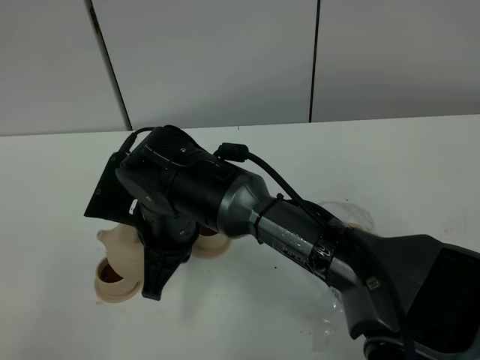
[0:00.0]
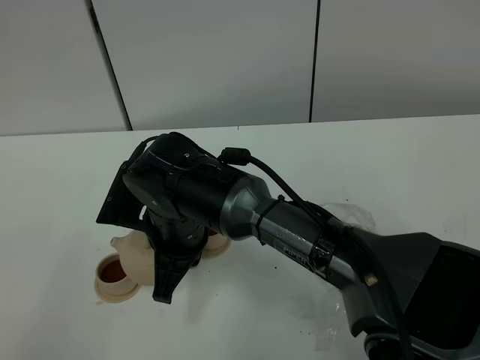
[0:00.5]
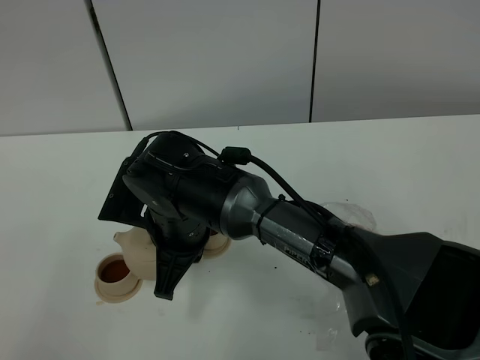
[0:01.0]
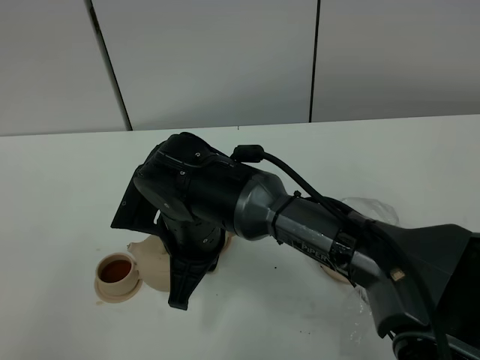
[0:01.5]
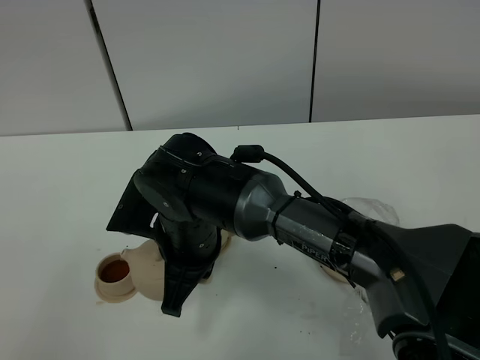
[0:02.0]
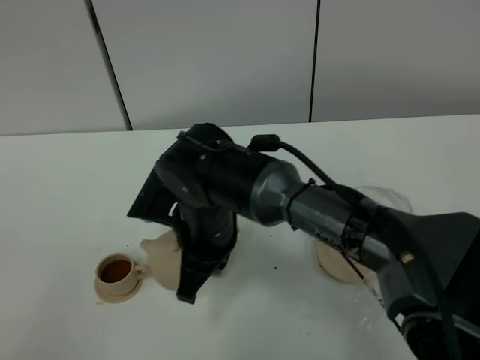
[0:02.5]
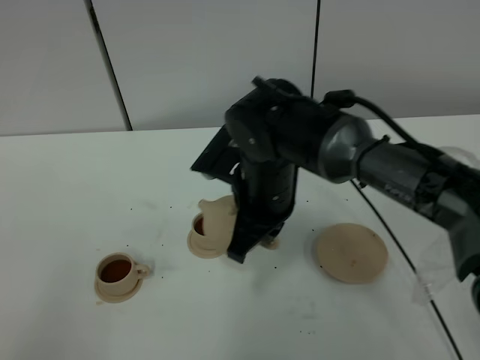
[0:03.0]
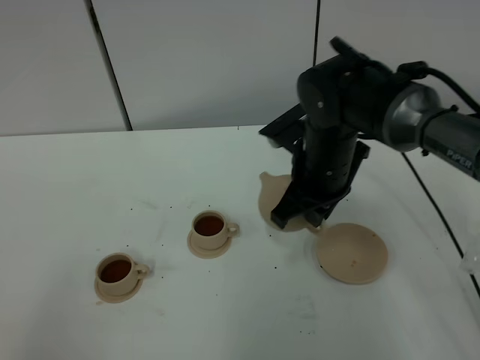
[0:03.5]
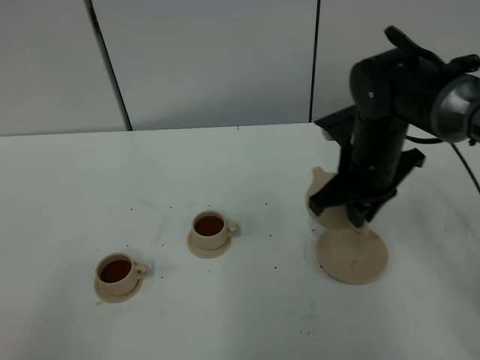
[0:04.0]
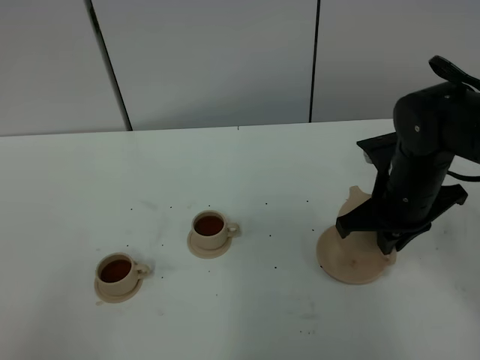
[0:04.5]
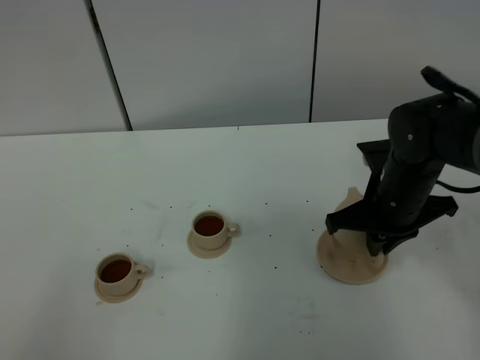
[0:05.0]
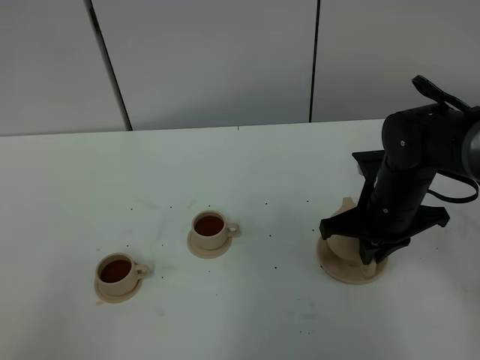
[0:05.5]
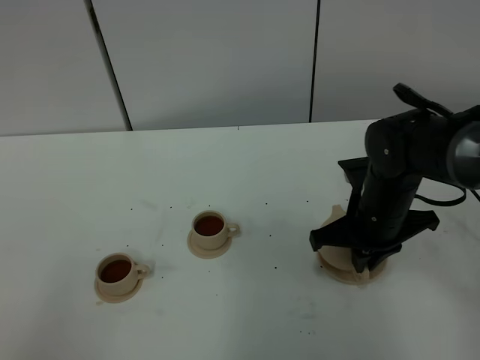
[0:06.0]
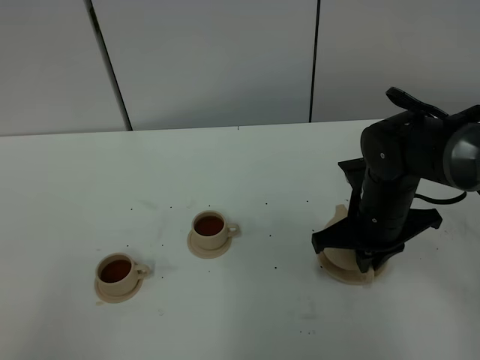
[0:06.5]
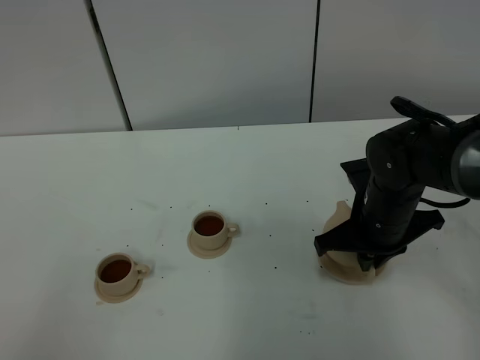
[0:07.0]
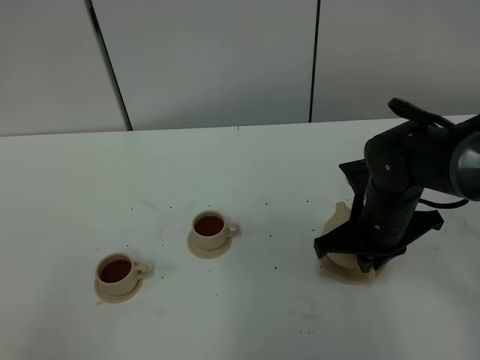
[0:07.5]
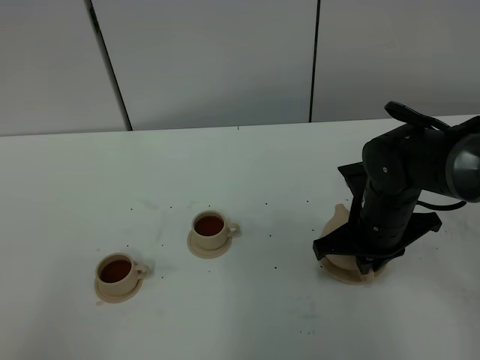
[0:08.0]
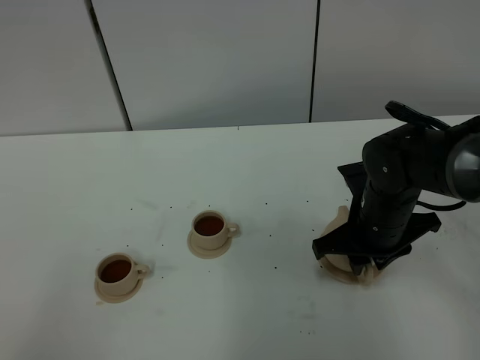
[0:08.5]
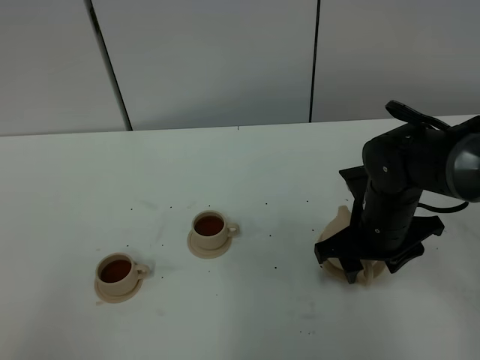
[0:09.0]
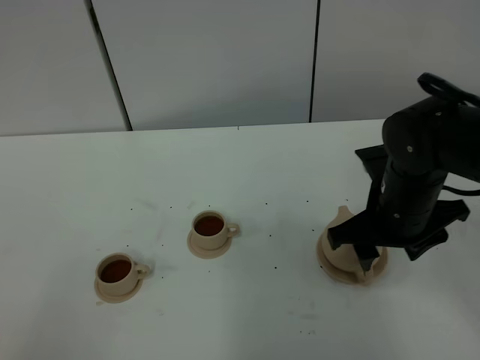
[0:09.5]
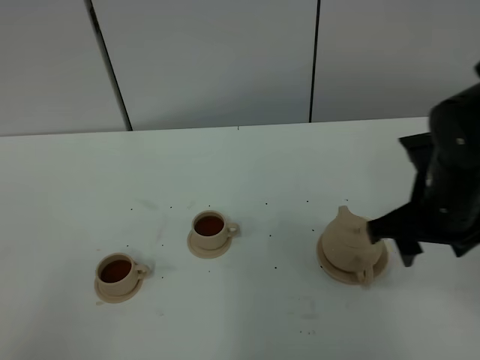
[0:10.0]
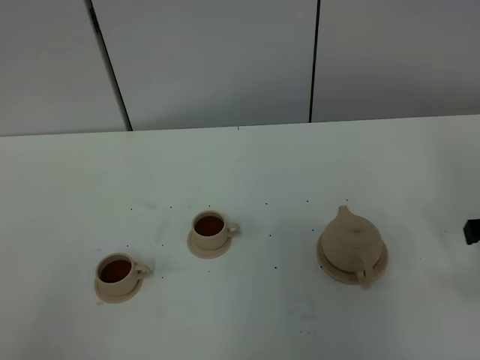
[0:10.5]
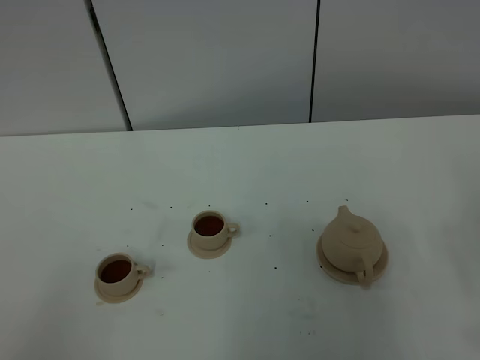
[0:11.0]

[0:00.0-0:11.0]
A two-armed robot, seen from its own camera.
Task of the whole recording: grasp the brown teapot and pour the tea into the two brown teacups one by one, put the brown teapot back in its original place.
0:00.0 to 0:02.0: The grippers make only small movements.
0:02.0 to 0:03.5: The right gripper is displaced to the right and forward by roughly 20 cm.
0:03.5 to 0:05.5: The right gripper travels to the right and downward by roughly 10 cm.
0:05.5 to 0:07.5: The grippers move only a little.
0:07.5 to 0:09.0: The right gripper opens.
0:09.0 to 0:11.0: The right gripper goes some 25 cm backward, to the right and upward.

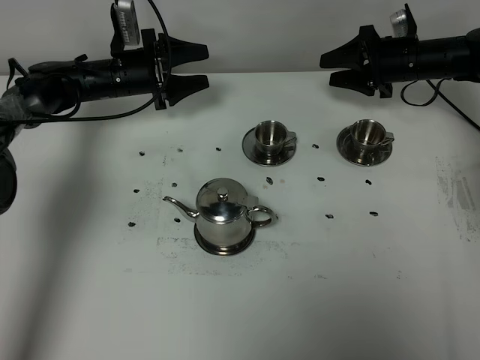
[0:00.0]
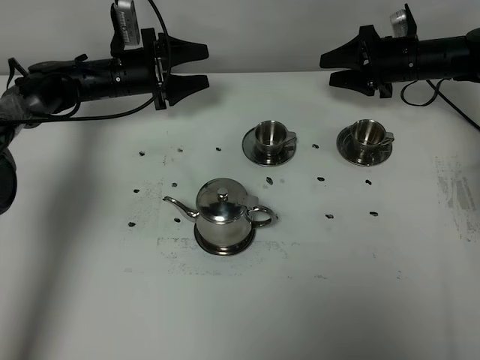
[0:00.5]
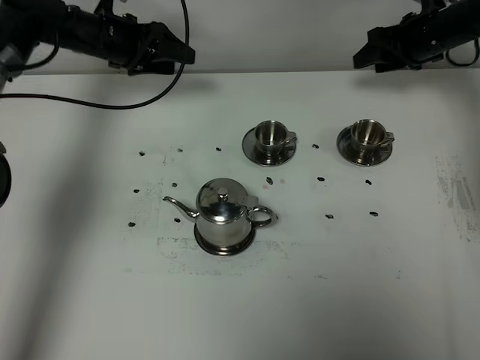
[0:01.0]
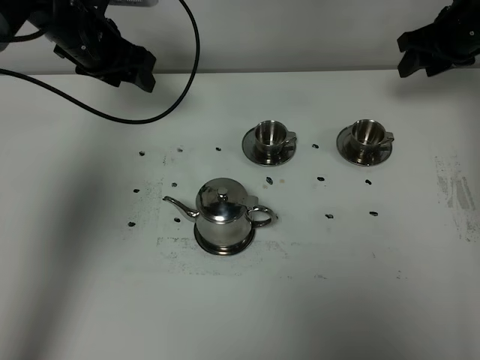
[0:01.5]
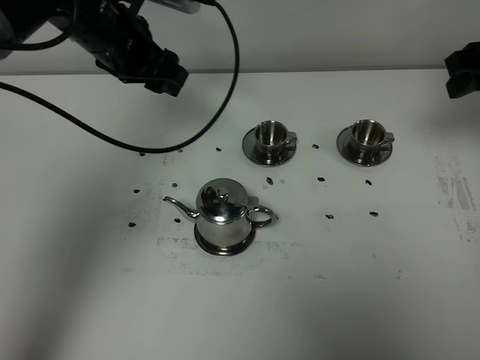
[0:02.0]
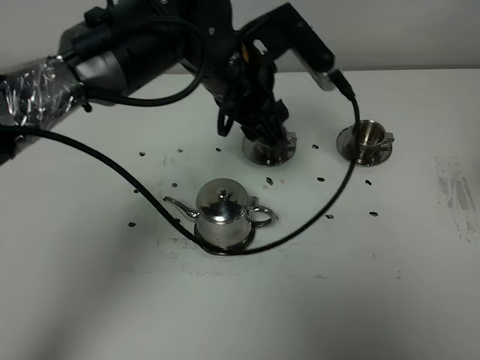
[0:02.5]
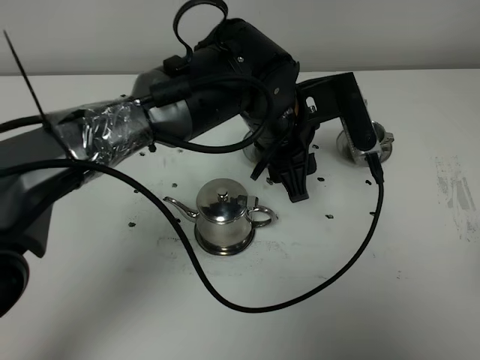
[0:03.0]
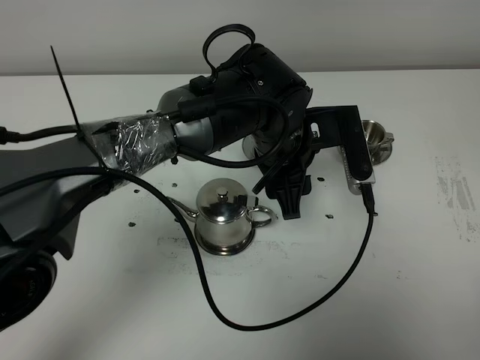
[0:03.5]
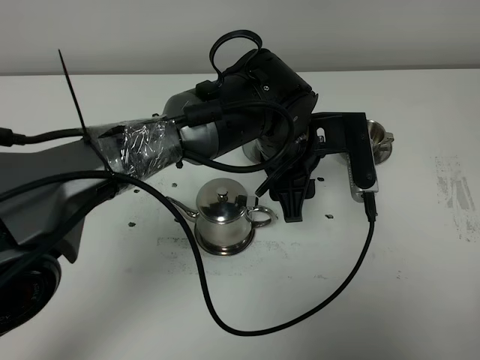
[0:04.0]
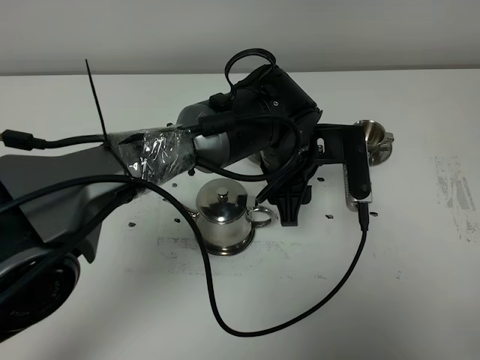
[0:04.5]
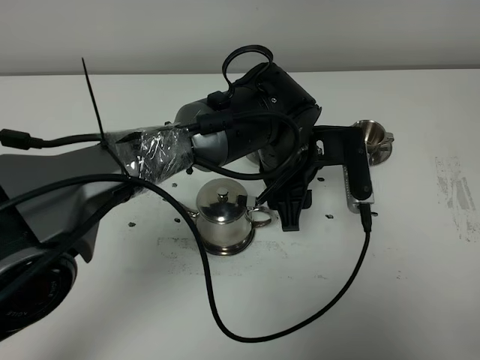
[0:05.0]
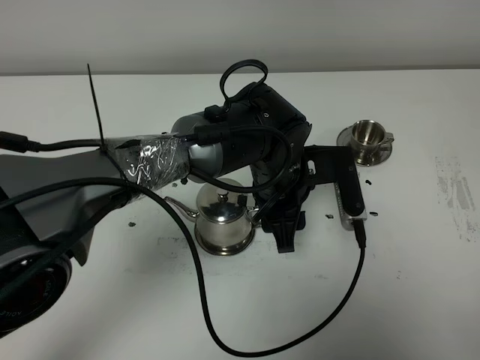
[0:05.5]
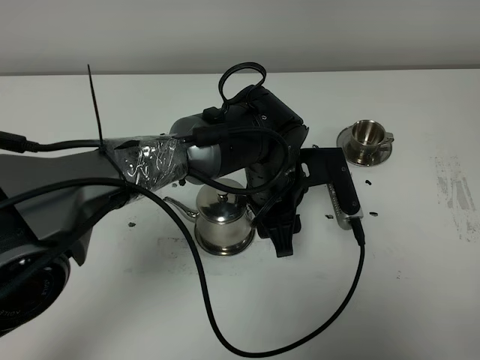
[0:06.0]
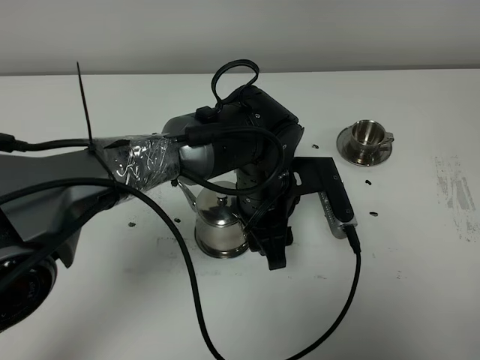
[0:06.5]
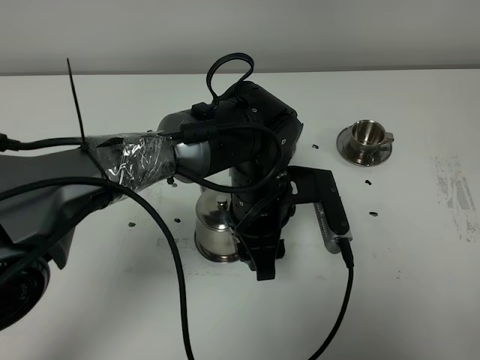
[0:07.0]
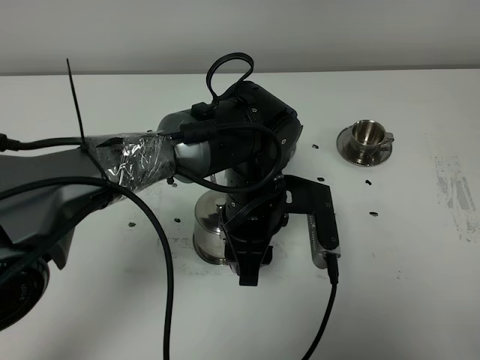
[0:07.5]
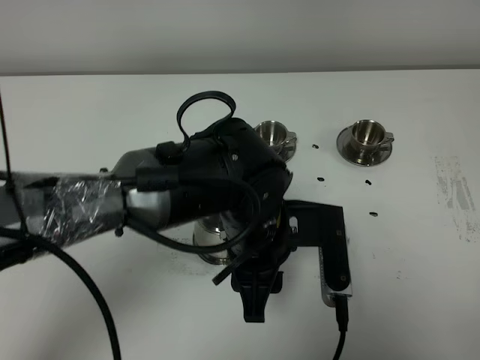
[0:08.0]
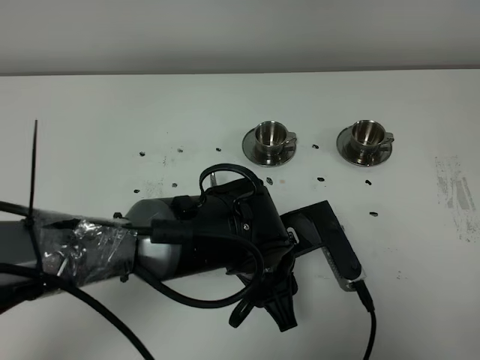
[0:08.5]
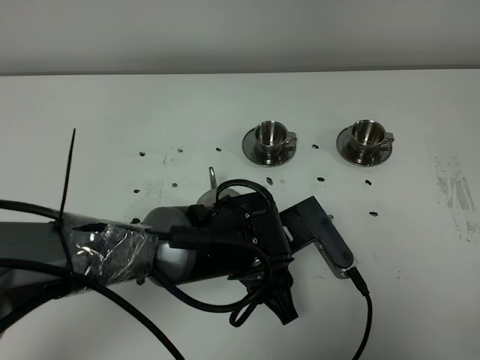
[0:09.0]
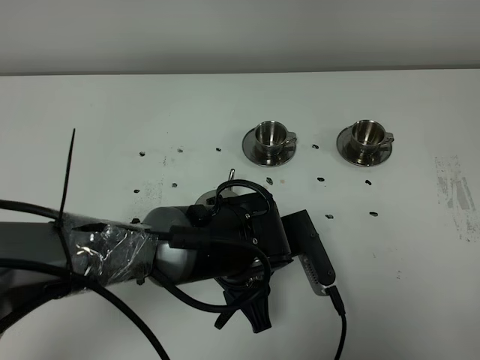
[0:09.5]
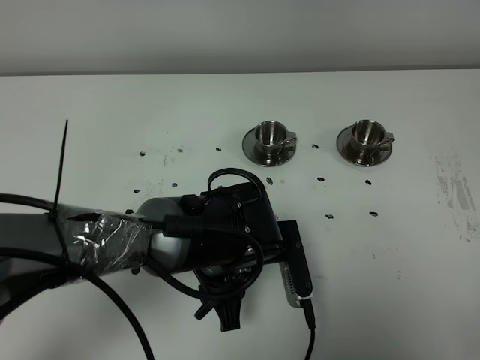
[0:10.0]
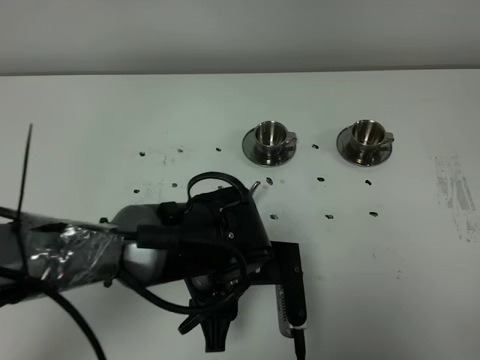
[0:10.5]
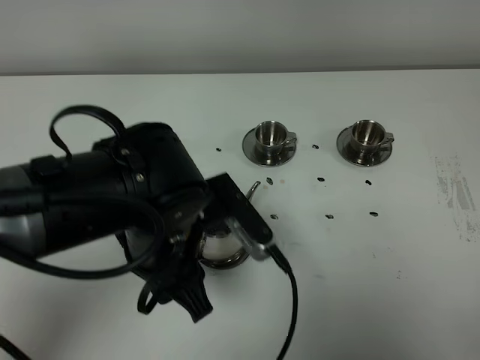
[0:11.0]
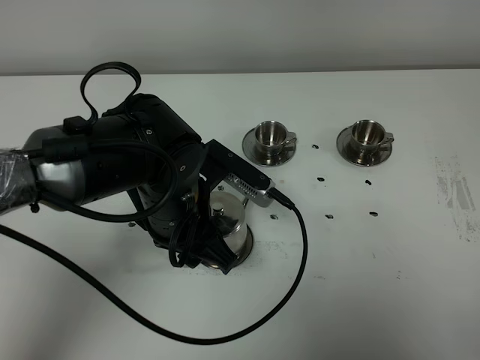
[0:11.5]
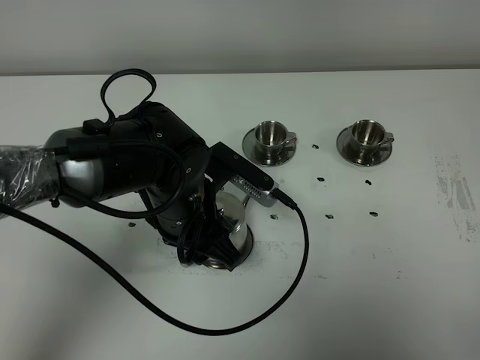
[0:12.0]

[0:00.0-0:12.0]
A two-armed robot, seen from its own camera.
Task of the whole recording: grasp the stainless steel teapot and pour the tea into the two stainless steel teacups one by one, put the stainless steel teapot back in its original place.
0:00.0 to 0:02.0: The left gripper goes approximately 20 cm upward and backward. The right gripper shifts some 25 cm backward and upward, and closes up.
0:02.0 to 0:04.0: The left gripper moves to the right and backward, roughly 20 cm. The right gripper shifts roughly 35 cm backward.
0:04.0 to 0:06.0: The left gripper moves roughly 5 cm.
0:06.0 to 0:08.0: The left gripper moves backward, approximately 10 cm.
0:08.0 to 0:10.0: The left gripper moves about 5 cm.
0:10.0 to 0:12.0: The left gripper goes some 5 cm to the left.

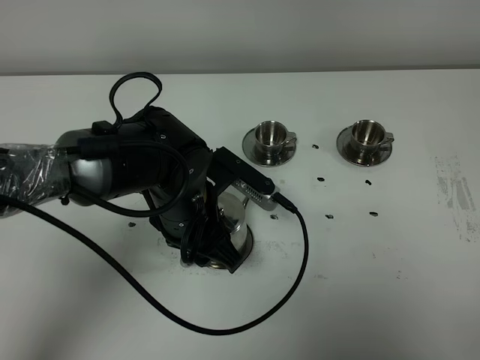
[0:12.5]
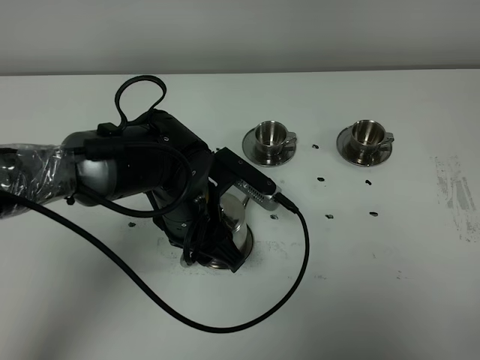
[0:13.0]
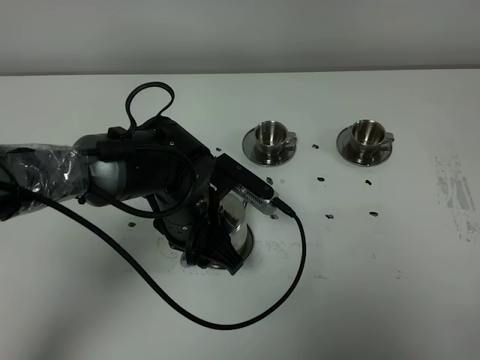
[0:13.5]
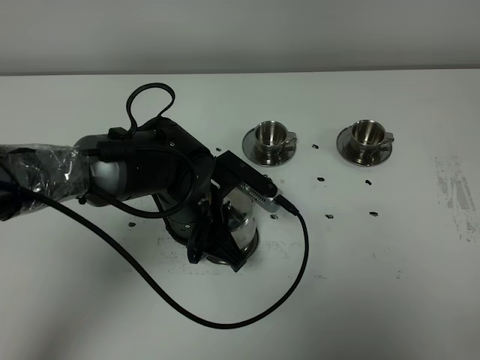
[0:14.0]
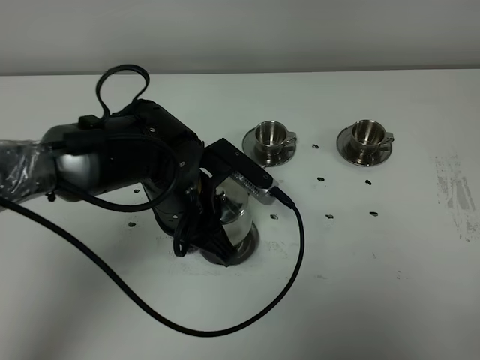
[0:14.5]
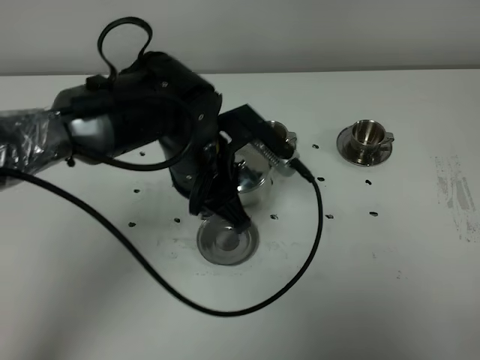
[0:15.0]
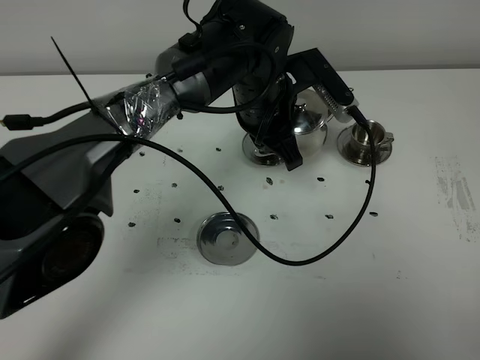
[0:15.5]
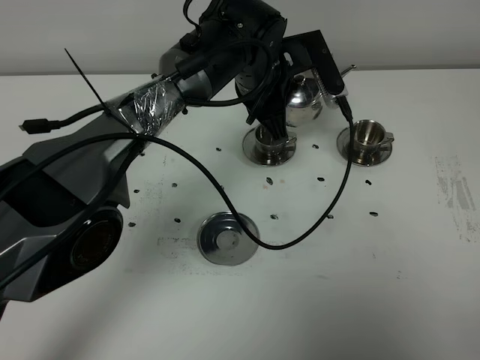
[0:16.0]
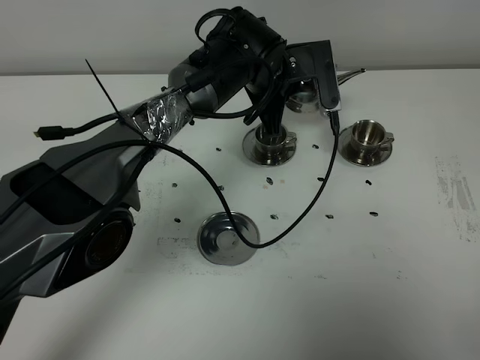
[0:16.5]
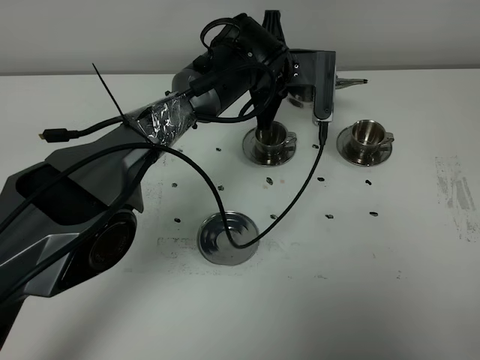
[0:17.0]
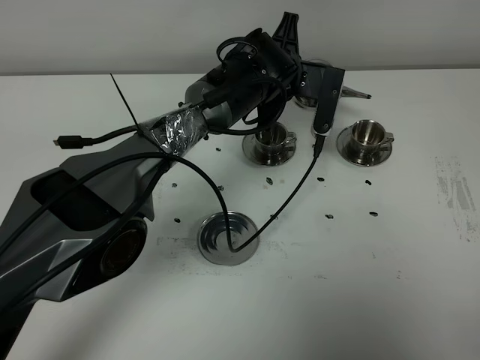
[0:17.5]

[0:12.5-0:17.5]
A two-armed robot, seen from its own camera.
Task of the whole recording: grasp the stainless steel teapot and pour the tea into the two stainless steel teacups one by one, put the stainless steel teapot back in its original place.
0:12.5 to 0:15.0: The left gripper ends up approximately 5 cm from where it was, and closes.
0:15.0 to 0:17.5: The left gripper heads forward and to the right, covering some 20 cm.
